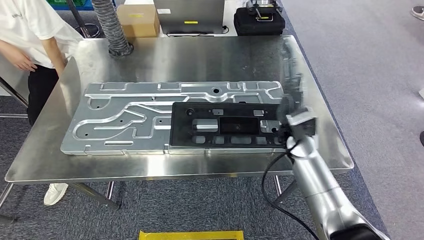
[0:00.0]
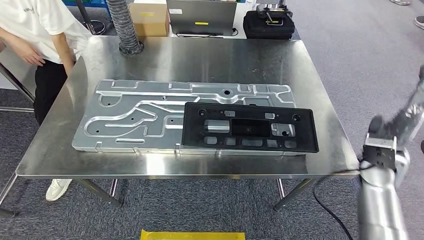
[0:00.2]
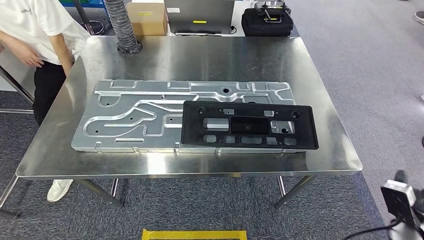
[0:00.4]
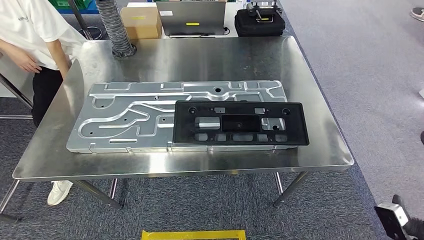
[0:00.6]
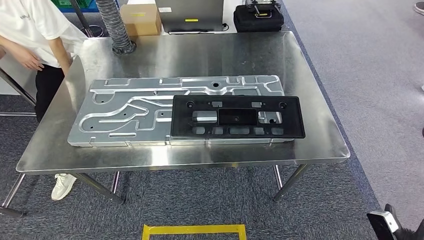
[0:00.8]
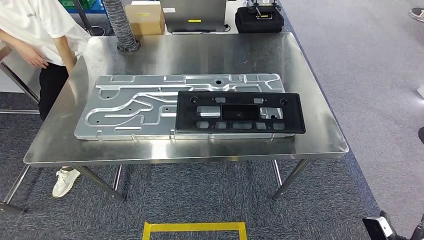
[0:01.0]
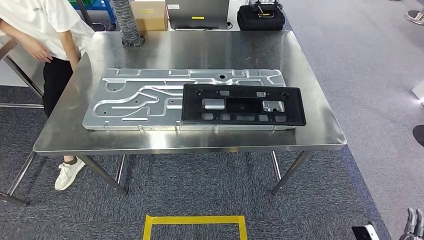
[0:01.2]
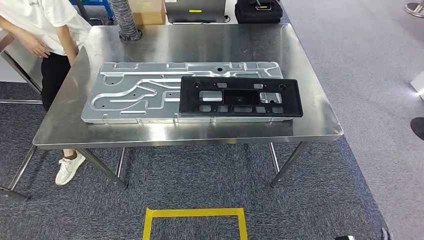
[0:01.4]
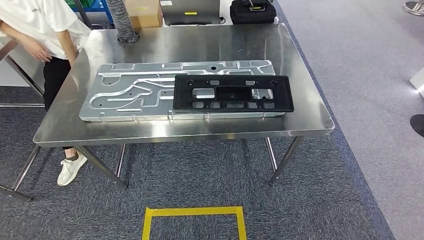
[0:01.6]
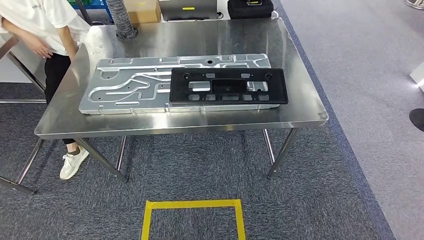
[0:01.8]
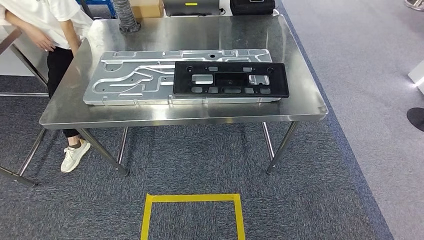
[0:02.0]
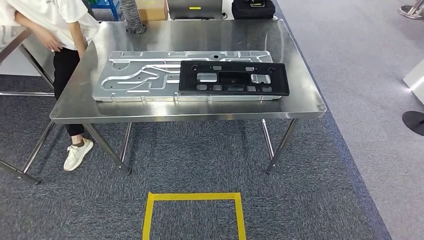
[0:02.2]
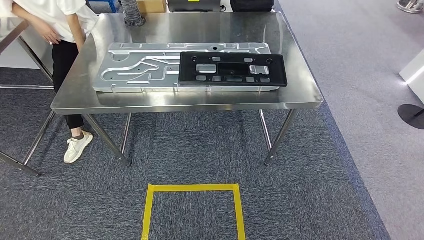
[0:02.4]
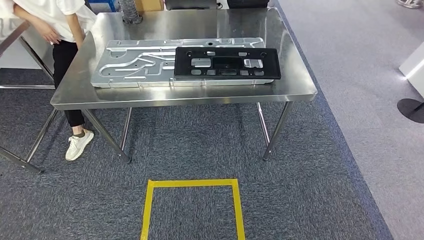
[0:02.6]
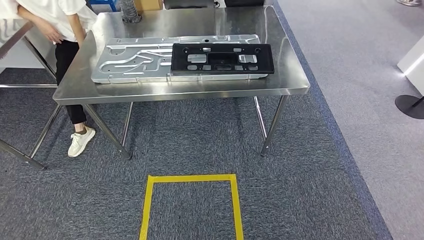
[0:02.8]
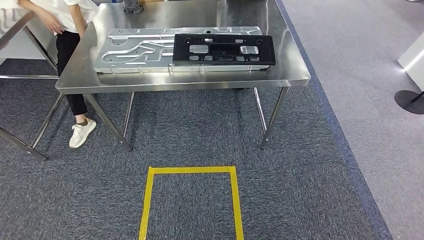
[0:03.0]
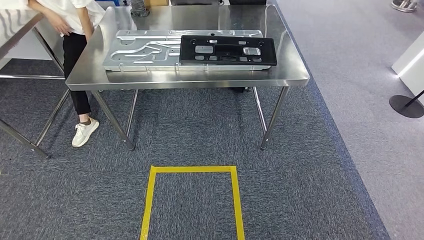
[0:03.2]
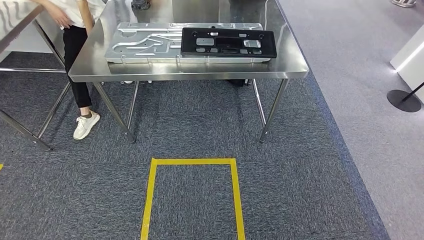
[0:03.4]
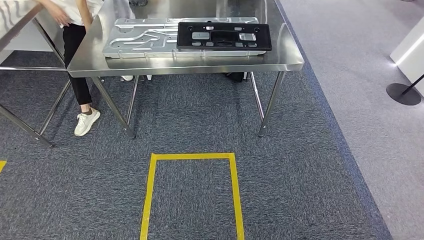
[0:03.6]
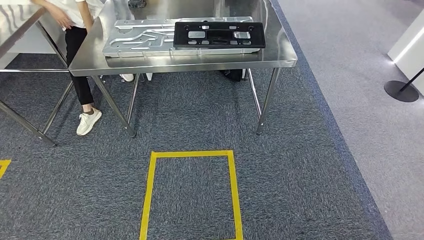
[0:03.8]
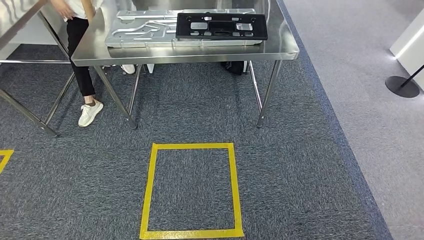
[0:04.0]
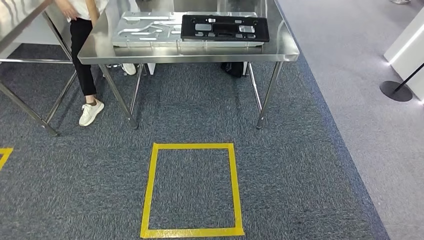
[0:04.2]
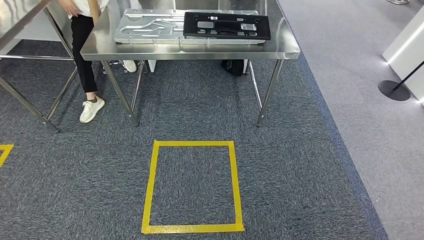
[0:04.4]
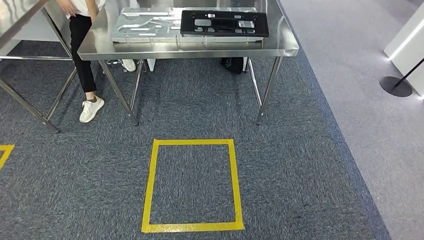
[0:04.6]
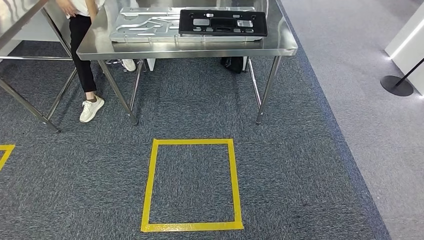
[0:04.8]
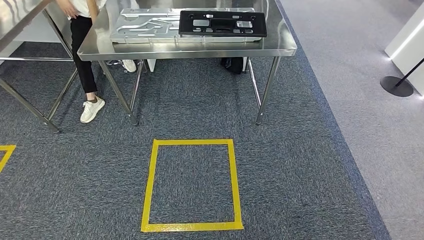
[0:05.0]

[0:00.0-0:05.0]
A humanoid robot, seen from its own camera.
Step, 0:01.6 to 0:05.0: Move to the initial position of the shelf.
